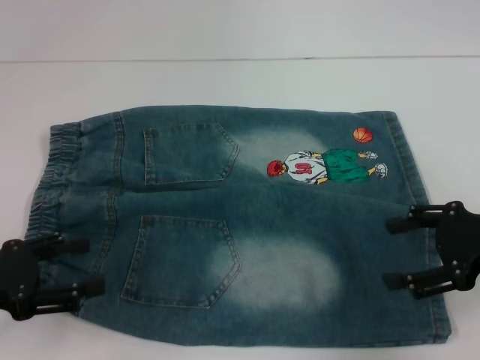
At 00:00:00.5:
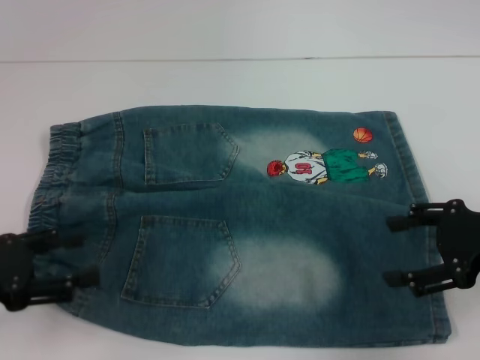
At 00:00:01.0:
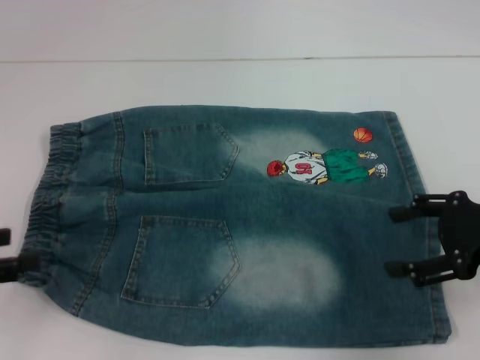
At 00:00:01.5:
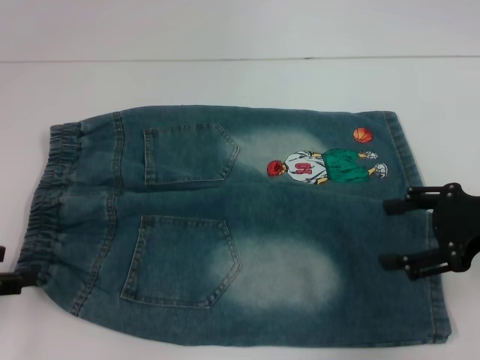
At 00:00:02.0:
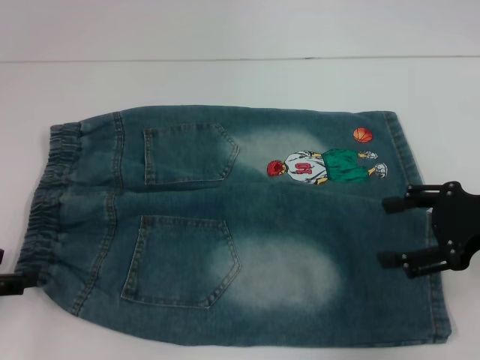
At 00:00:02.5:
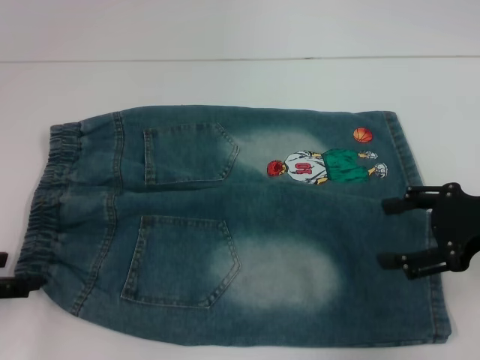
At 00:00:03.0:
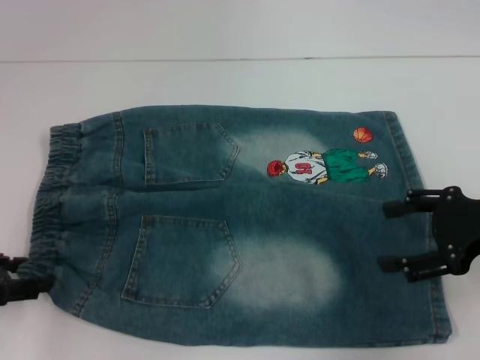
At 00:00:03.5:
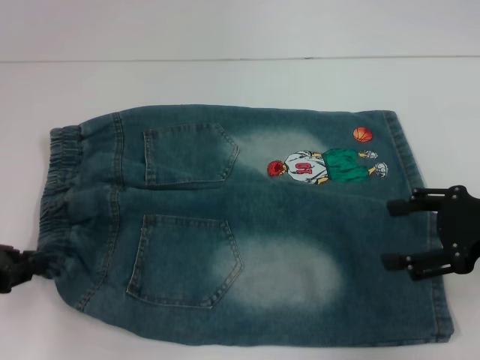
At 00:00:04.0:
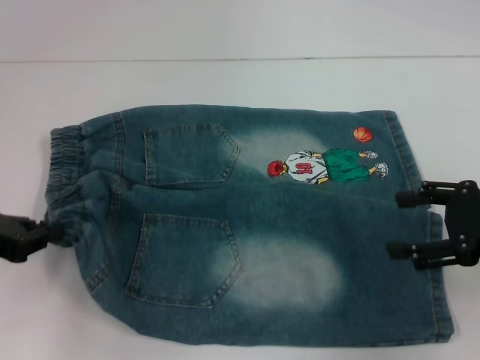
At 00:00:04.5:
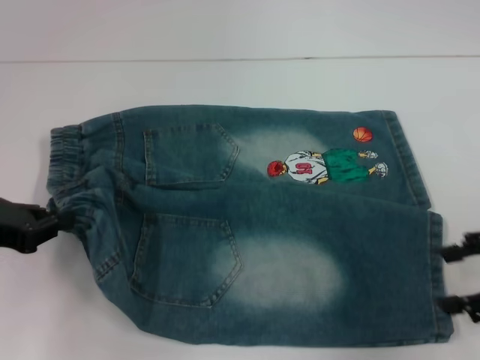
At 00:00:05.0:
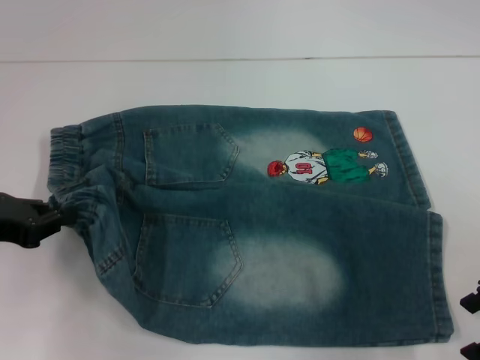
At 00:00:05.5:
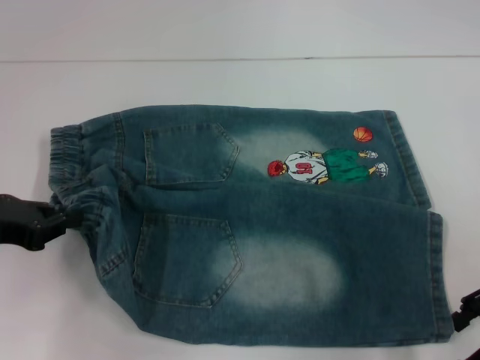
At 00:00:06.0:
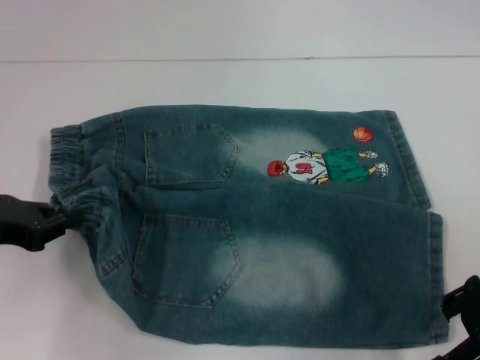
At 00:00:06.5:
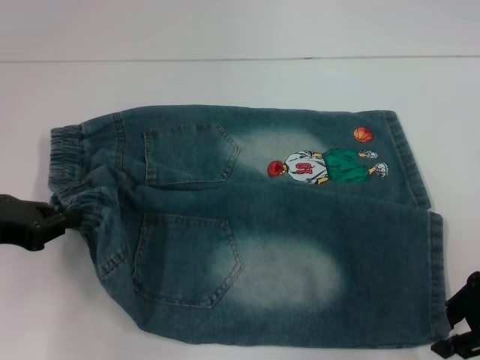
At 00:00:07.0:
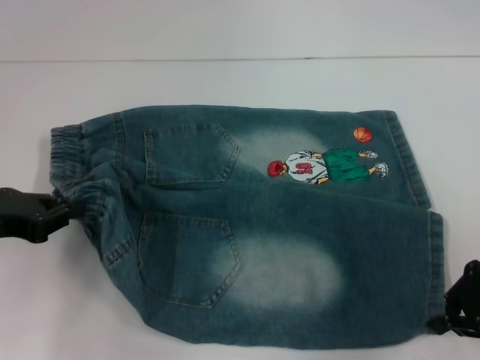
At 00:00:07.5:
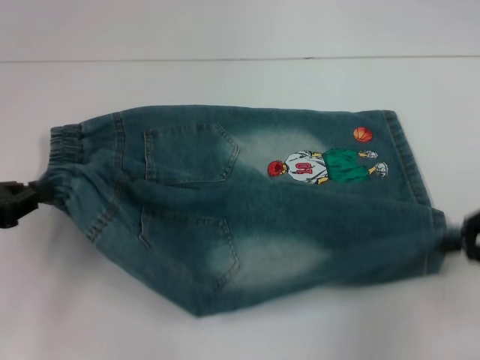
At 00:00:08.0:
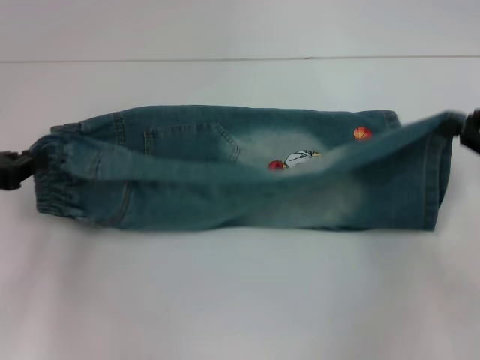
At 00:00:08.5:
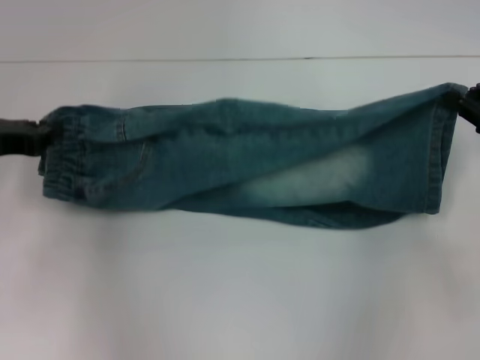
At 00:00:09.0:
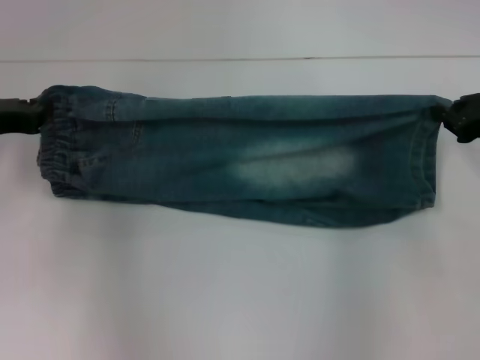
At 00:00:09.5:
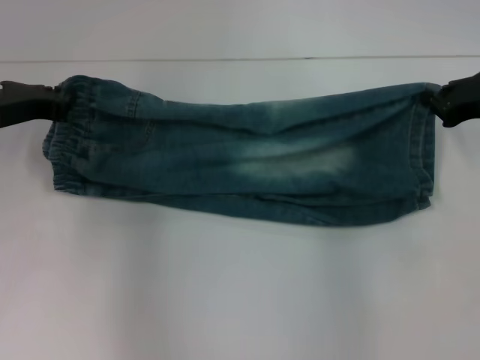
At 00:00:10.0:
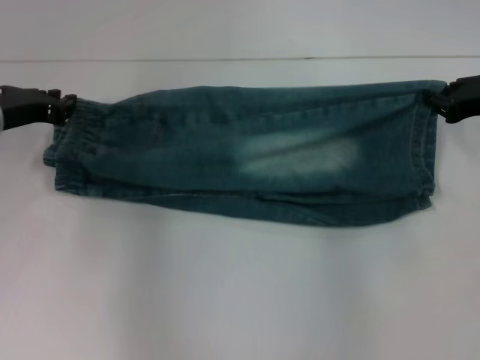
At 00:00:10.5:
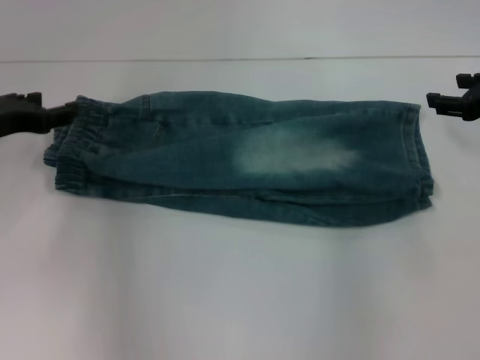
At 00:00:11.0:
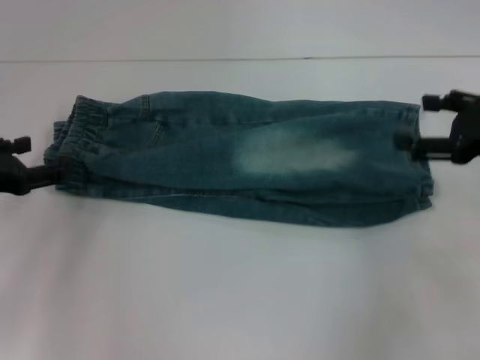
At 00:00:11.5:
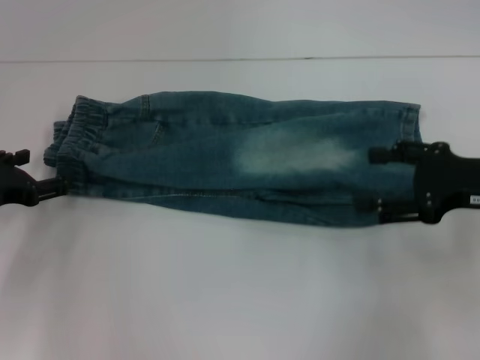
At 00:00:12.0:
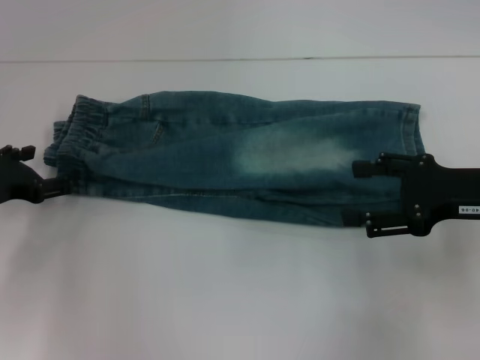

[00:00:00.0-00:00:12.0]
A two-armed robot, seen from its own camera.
Step, 00:00:00.0 to 00:00:03.5: Hold the lower left waistband with your left hand.
Step, 00:00:04.0 to 00:00:07.0: Grab the lower right pant leg with your right hand.
Step, 00:00:07.5 to 00:00:10.0: Fold upward with your right hand.
00:00:02.0 to 00:00:04.0: The left gripper closes its fingers.
00:00:06.0 to 00:00:08.0: The right gripper shifts some 5 cm to the right, and closes up.
00:00:08.0 to 00:00:10.0: The left gripper travels forward and to the right by roughly 10 cm, while the right gripper goes roughly 10 cm forward.
00:00:10.0 to 00:00:12.0: The right gripper shifts some 10 cm backward, and opens; the left gripper is displaced backward and downward by some 10 cm, and opens its fingers.

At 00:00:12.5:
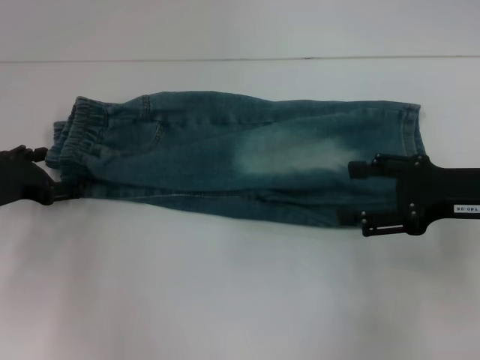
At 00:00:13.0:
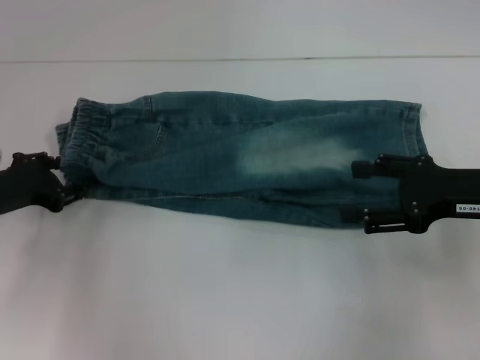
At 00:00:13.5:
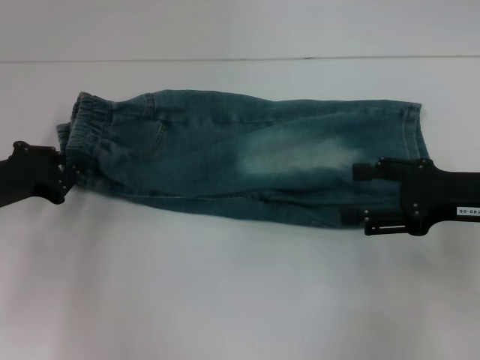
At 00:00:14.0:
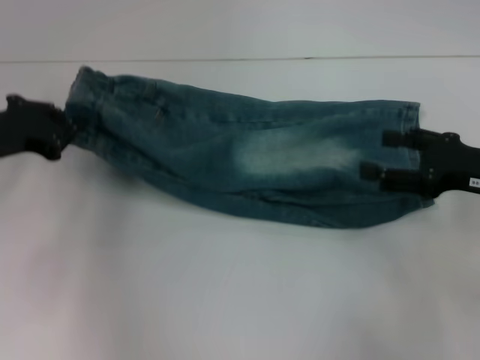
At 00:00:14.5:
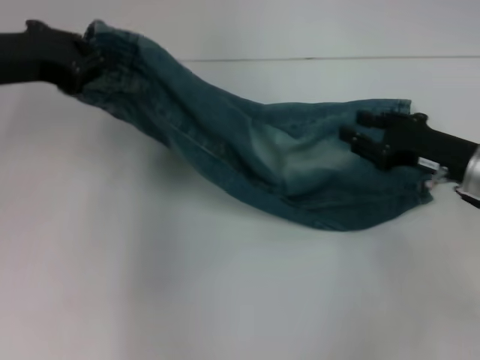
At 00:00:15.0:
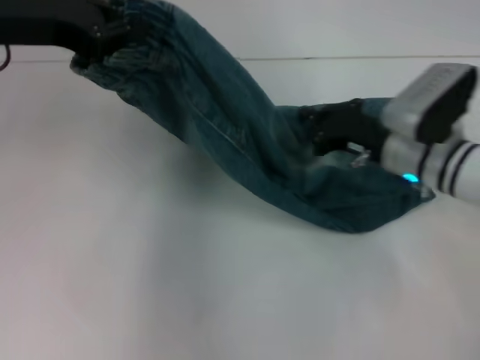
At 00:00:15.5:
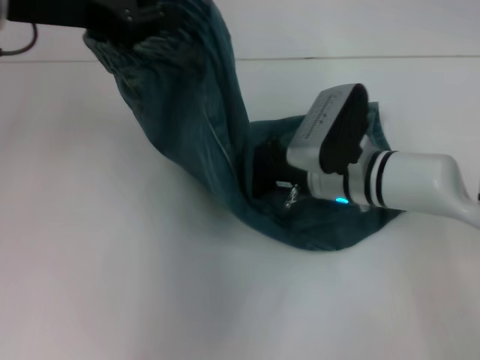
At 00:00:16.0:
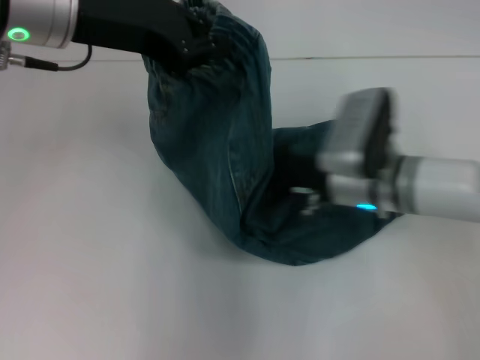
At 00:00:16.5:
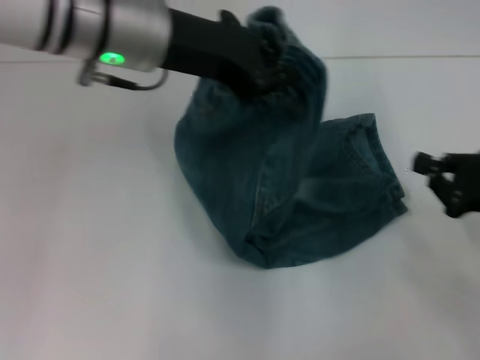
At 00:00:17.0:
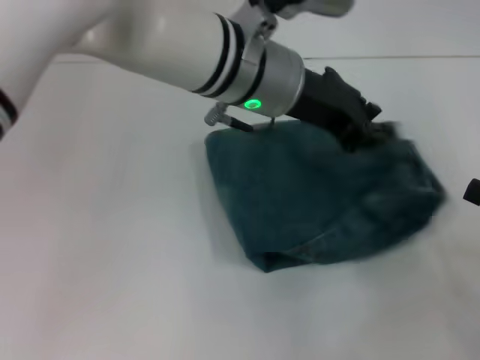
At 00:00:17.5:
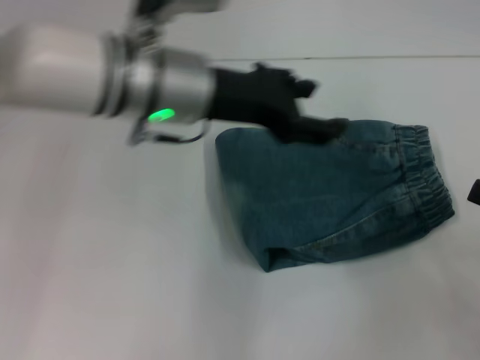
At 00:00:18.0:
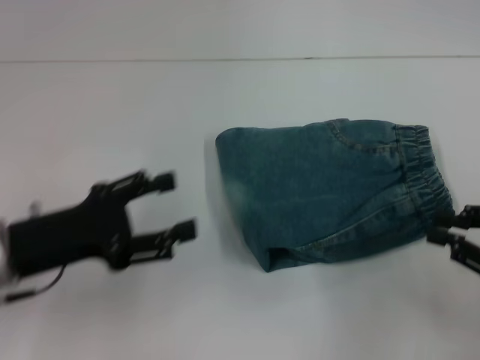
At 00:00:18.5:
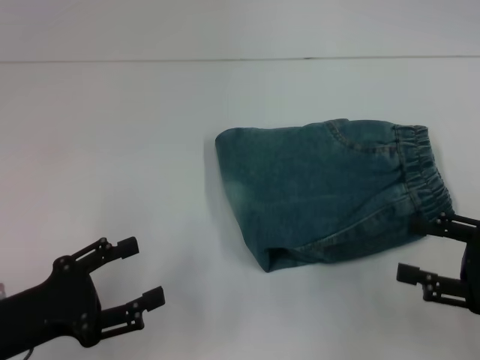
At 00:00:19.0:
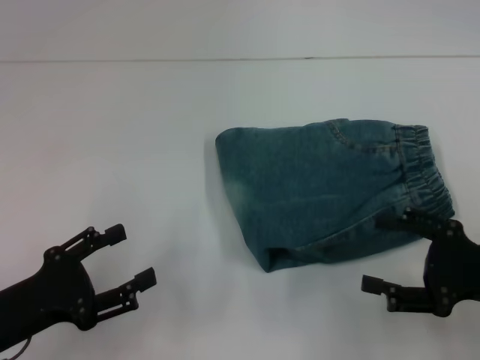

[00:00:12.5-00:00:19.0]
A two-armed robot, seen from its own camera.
Step, 00:00:14.0 to 00:00:16.0: Press the middle of the pants with your right hand.
Step, 00:00:16.5 to 00:00:17.5: Fold to the right with your left hand.
00:00:12.5 to 00:00:14.5: The right gripper heads downward, covering roughly 5 cm, while the left gripper moves upward, approximately 15 cm, and closes its fingers.
00:00:14.5 to 00:00:17.0: The left gripper goes about 25 cm to the right. Meanwhile the right gripper travels backward and to the right by approximately 15 cm, and closes up.
00:00:17.0 to 00:00:19.0: The right gripper goes some 5 cm to the left, and opens. The left gripper travels to the left, backward and downward by some 35 cm, and opens up.
